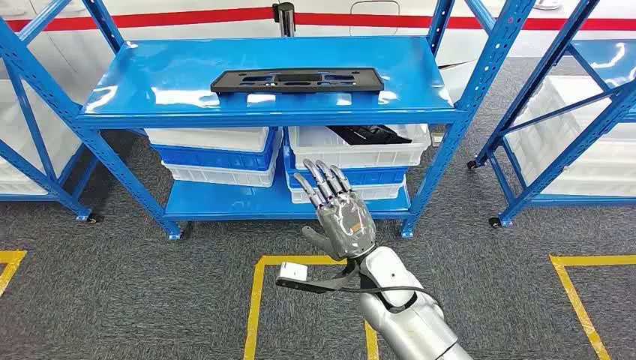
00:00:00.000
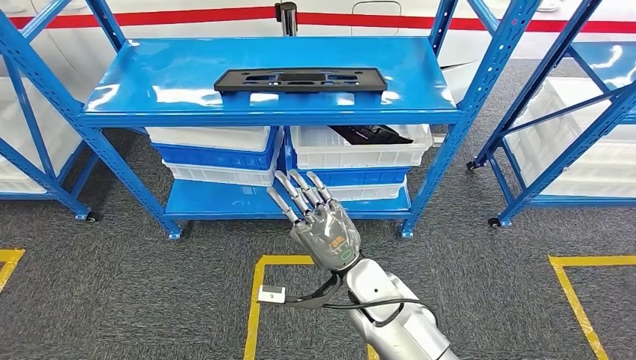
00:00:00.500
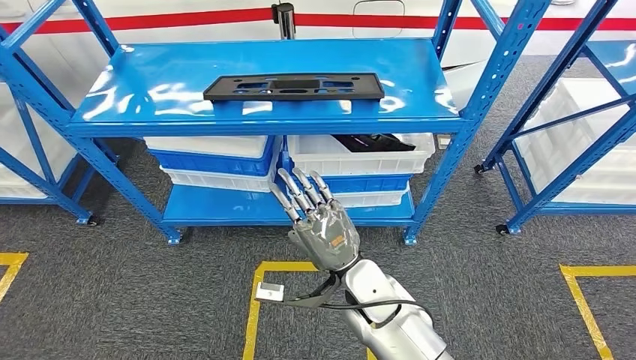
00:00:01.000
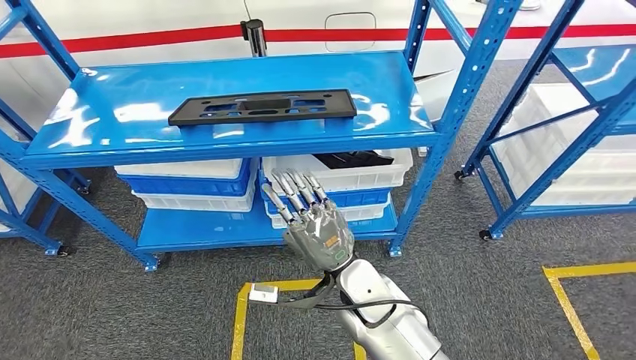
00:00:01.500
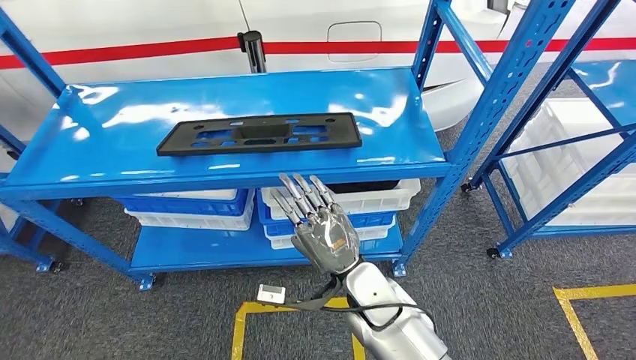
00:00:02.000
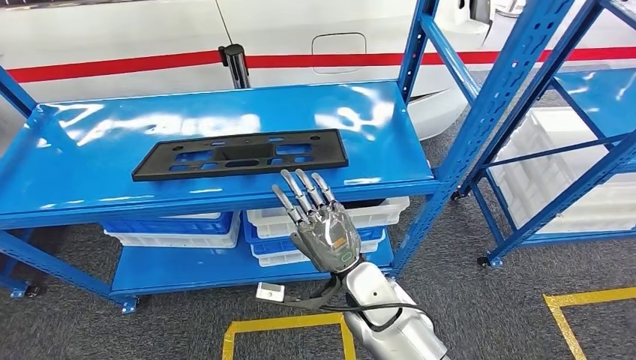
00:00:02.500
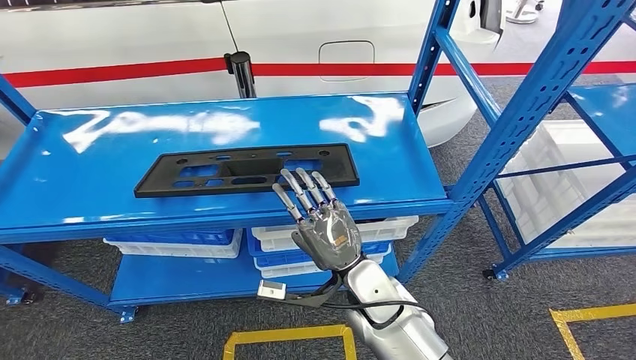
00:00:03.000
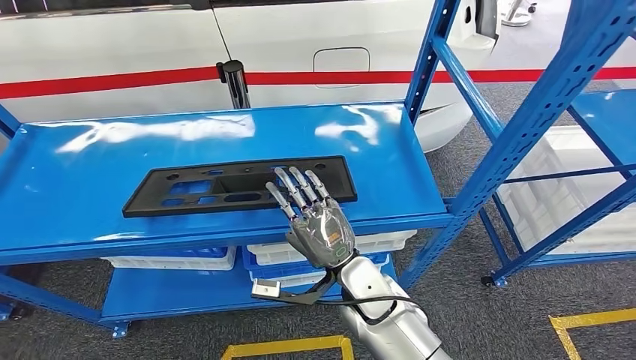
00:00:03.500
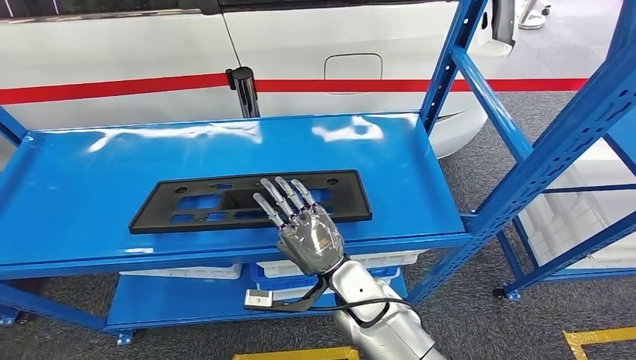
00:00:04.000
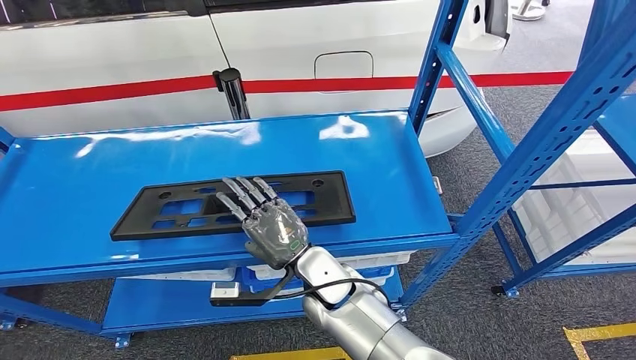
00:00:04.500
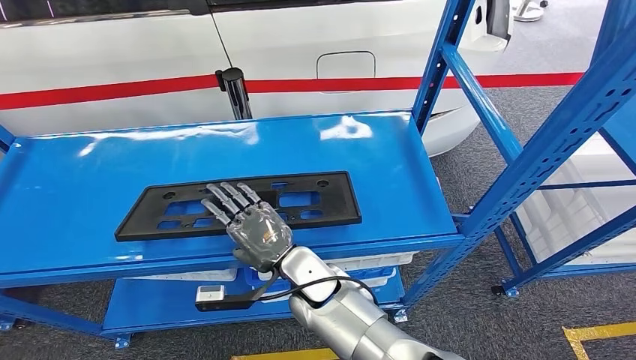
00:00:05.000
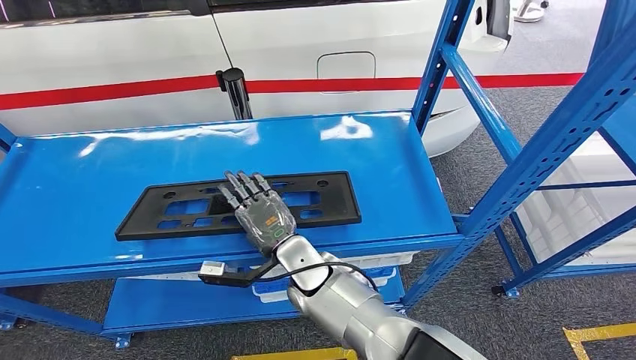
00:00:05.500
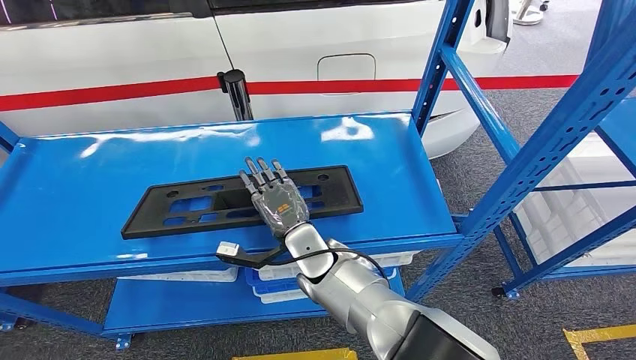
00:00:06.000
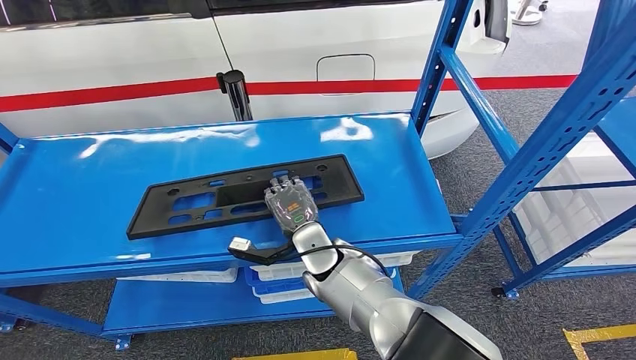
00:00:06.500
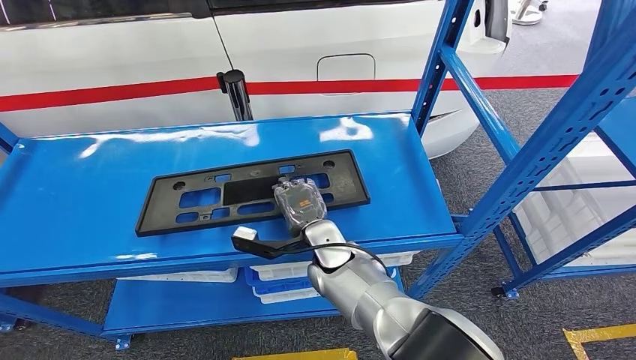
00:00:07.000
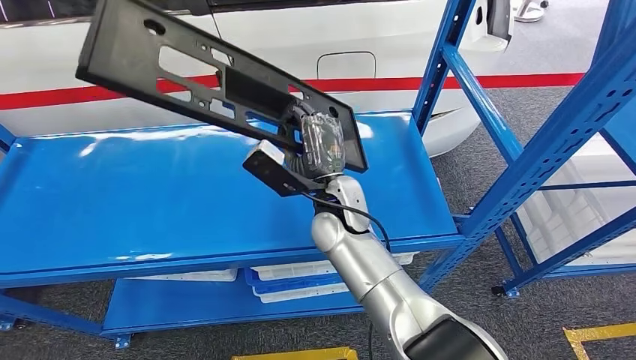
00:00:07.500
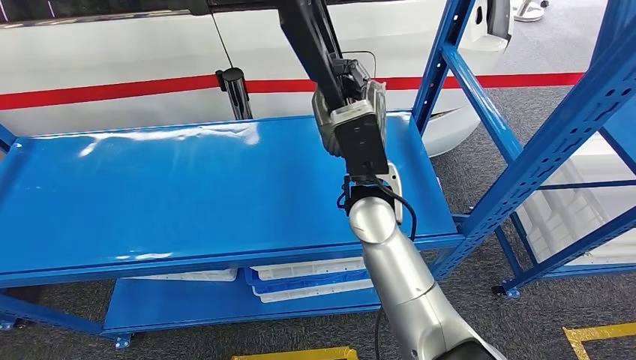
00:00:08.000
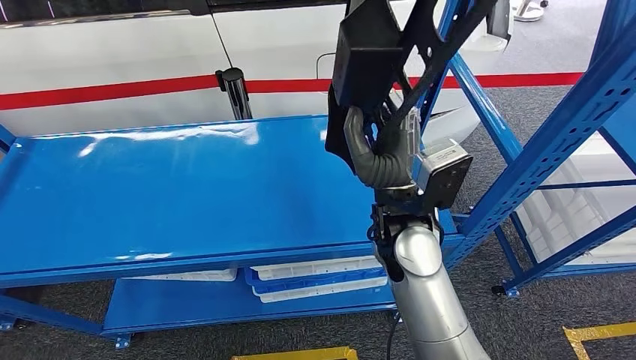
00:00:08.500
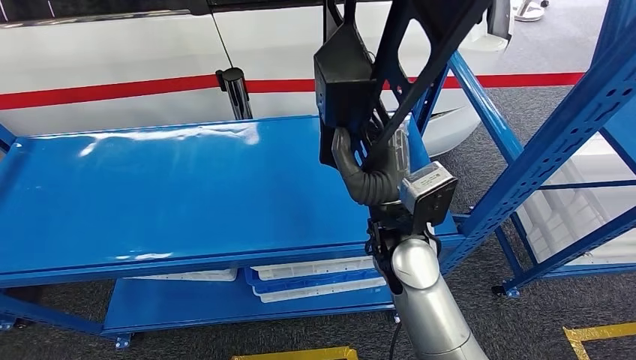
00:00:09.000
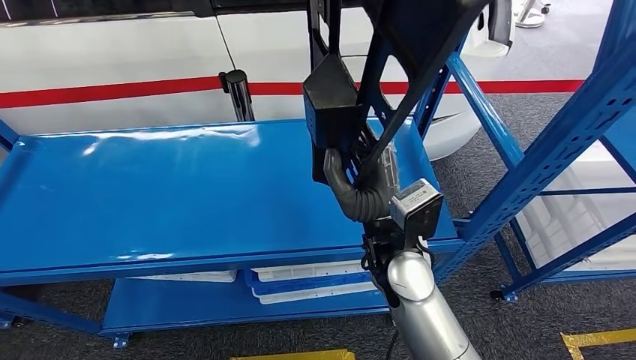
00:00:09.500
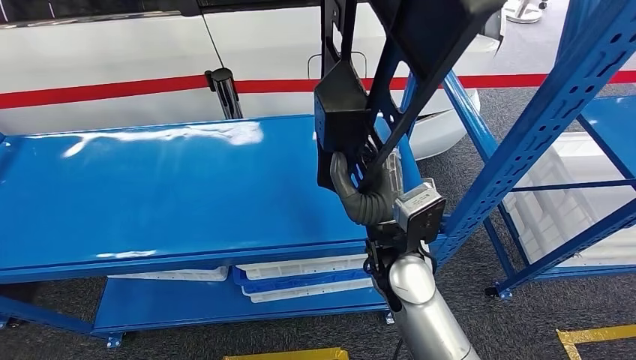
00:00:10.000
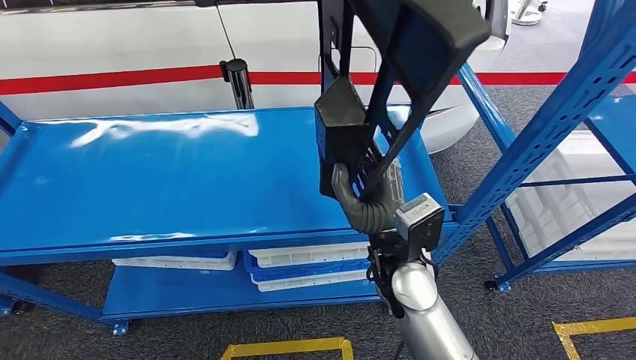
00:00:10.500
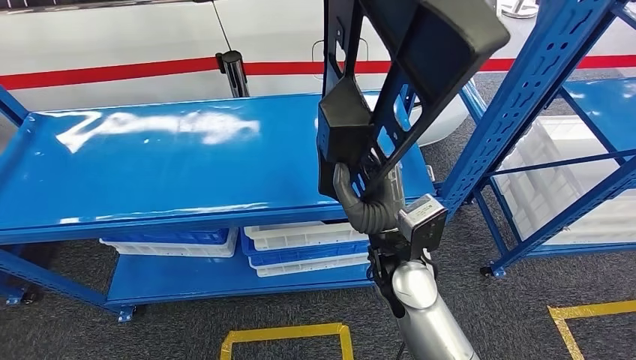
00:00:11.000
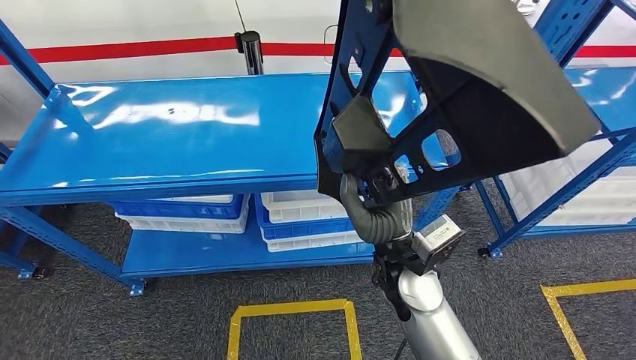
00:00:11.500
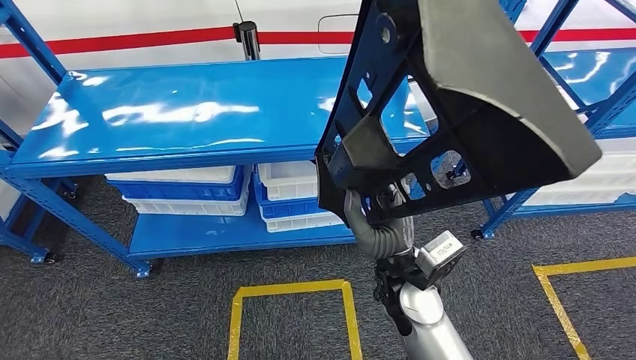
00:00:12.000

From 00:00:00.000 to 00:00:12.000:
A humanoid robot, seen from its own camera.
Step, from 00:00:00.000 to 00:00:11.000: Pick up the large material from the shelf.

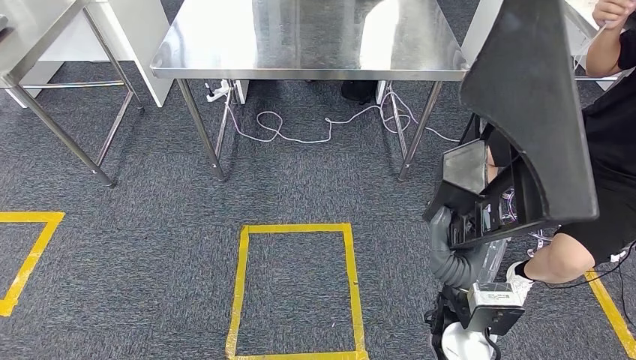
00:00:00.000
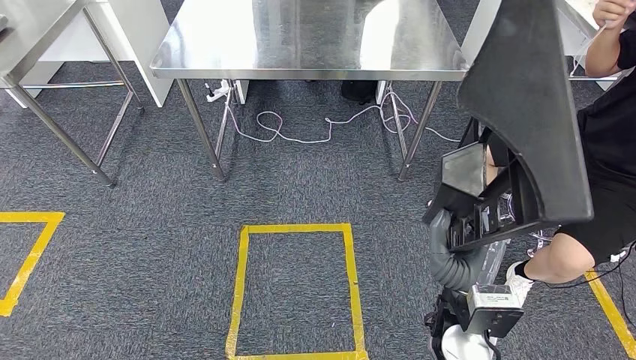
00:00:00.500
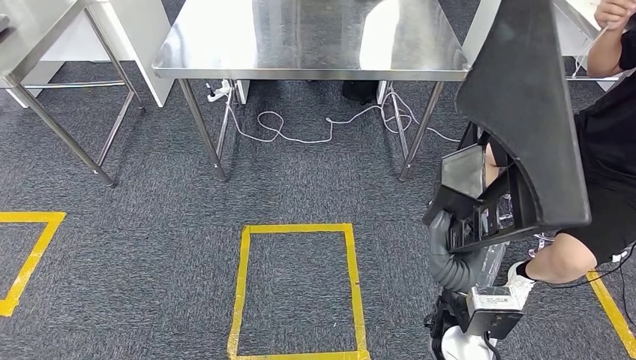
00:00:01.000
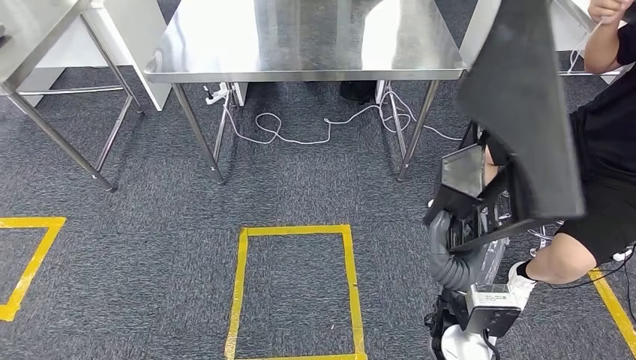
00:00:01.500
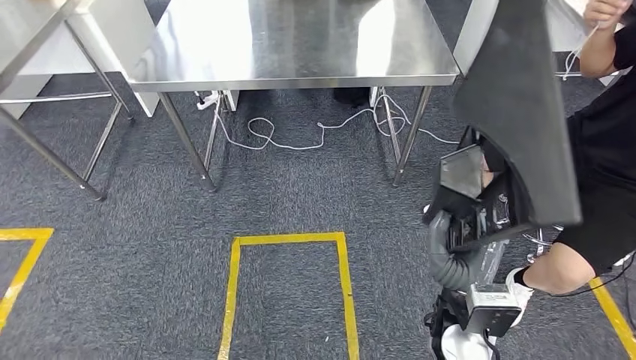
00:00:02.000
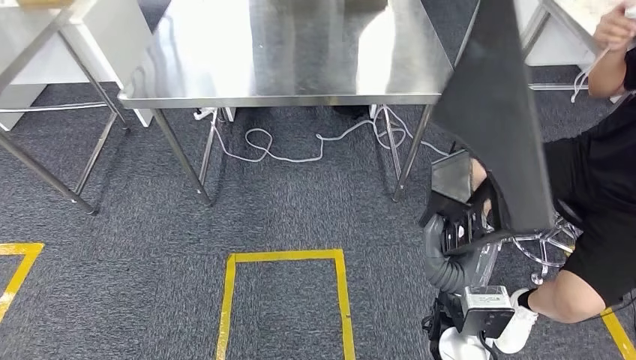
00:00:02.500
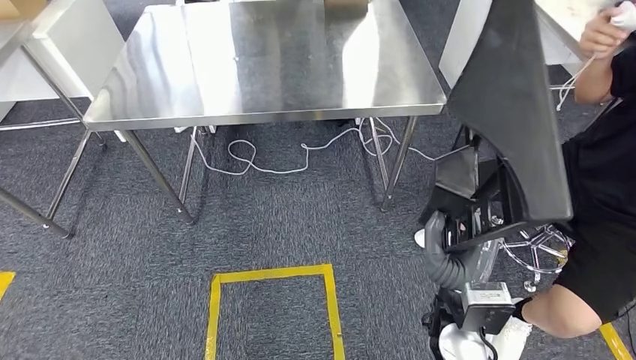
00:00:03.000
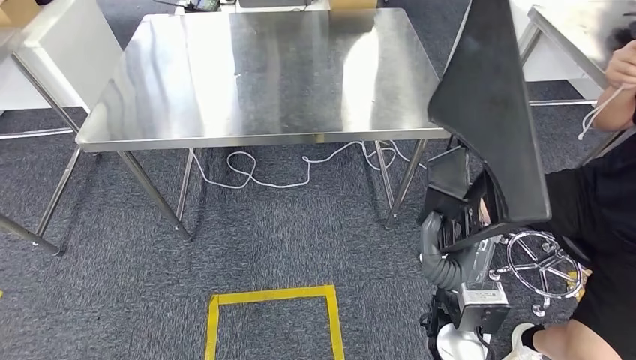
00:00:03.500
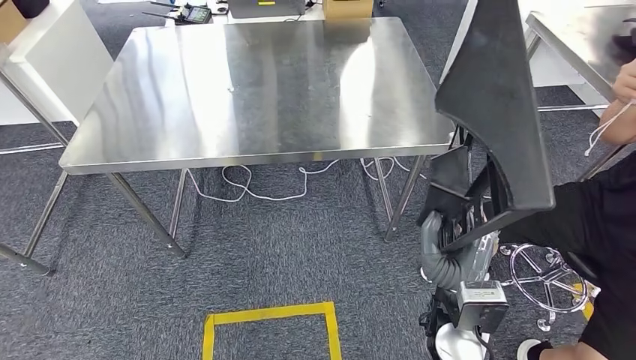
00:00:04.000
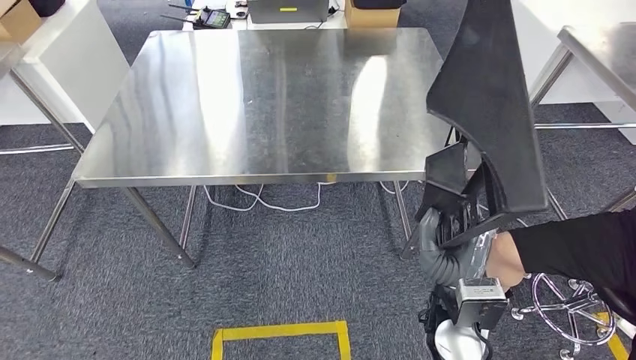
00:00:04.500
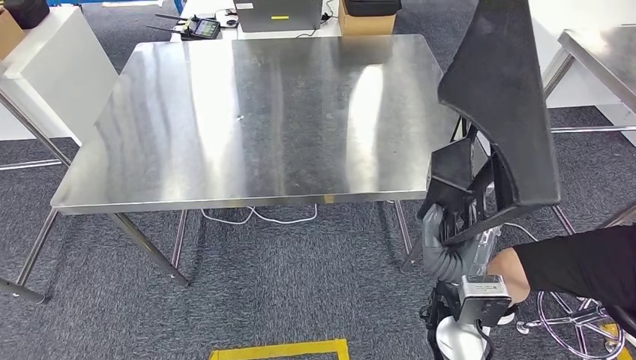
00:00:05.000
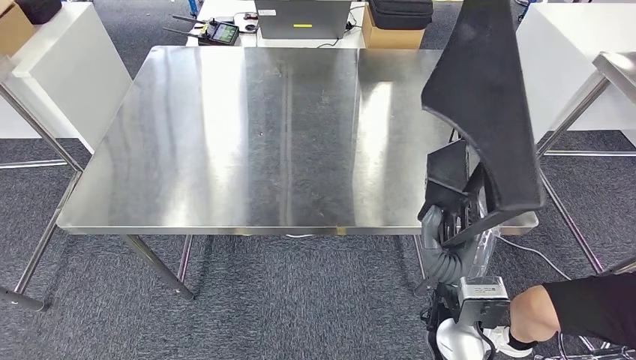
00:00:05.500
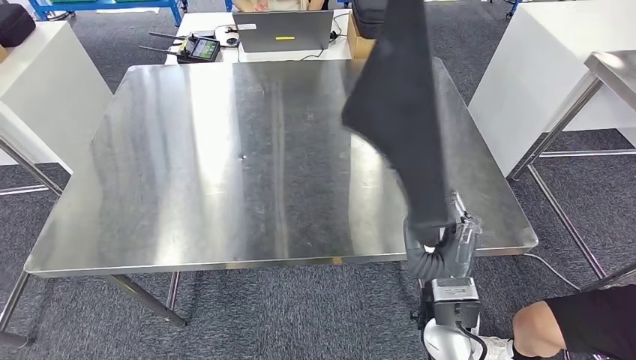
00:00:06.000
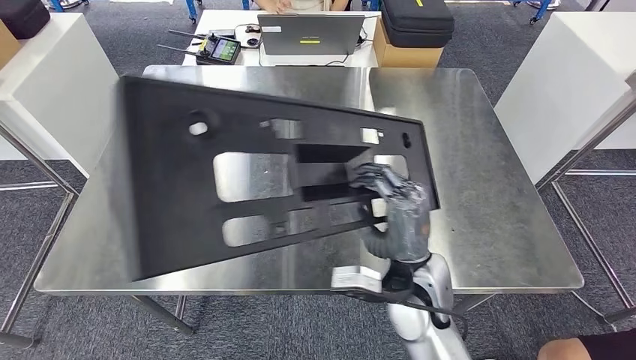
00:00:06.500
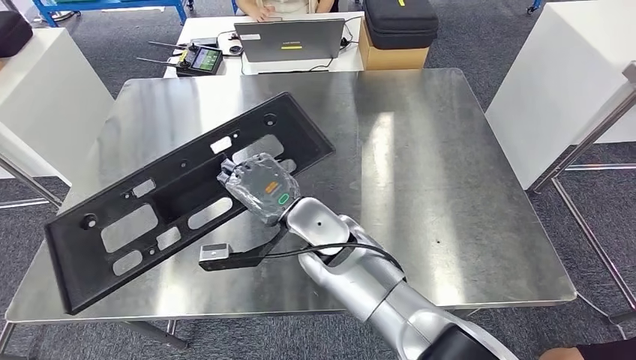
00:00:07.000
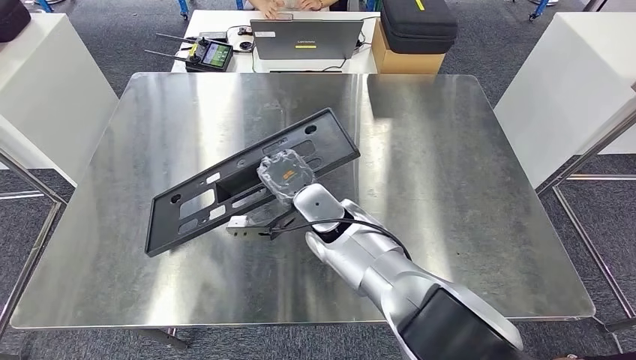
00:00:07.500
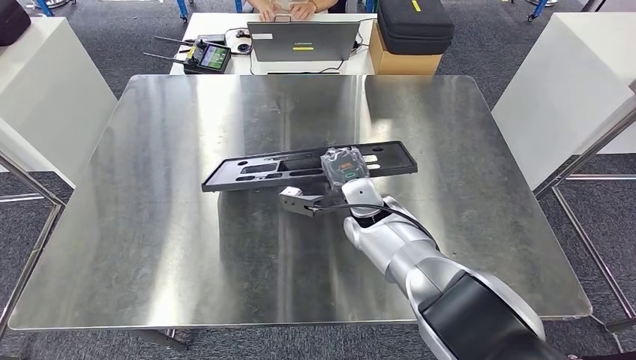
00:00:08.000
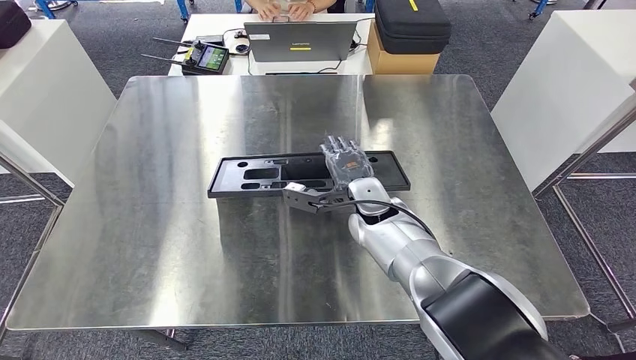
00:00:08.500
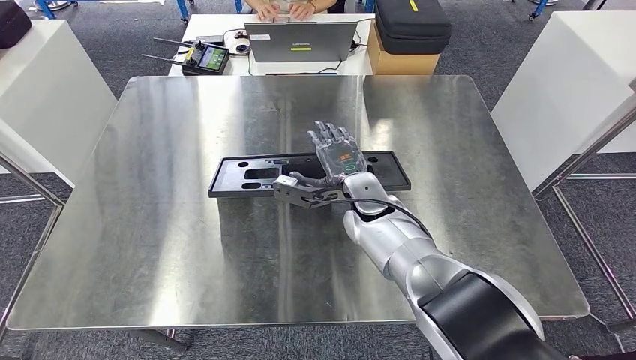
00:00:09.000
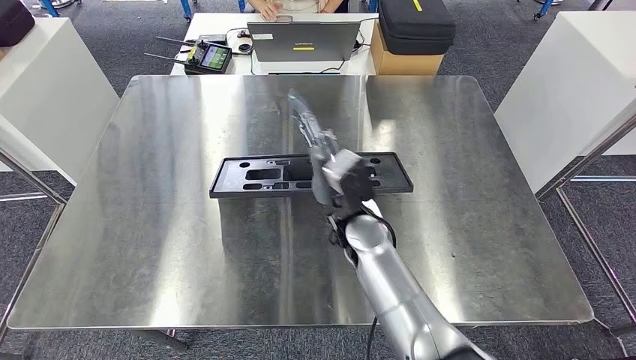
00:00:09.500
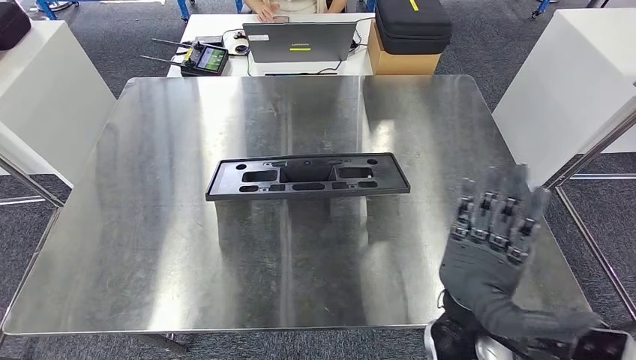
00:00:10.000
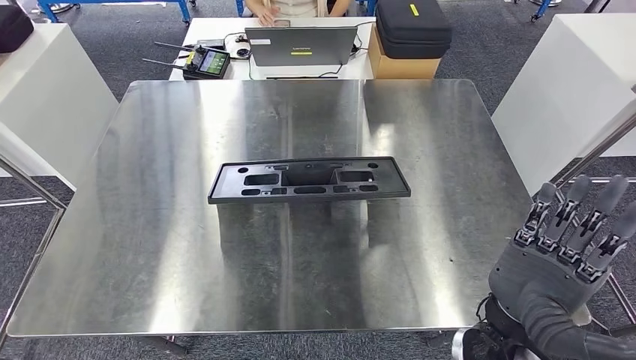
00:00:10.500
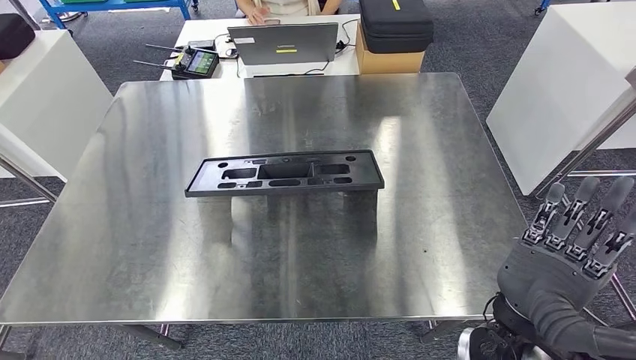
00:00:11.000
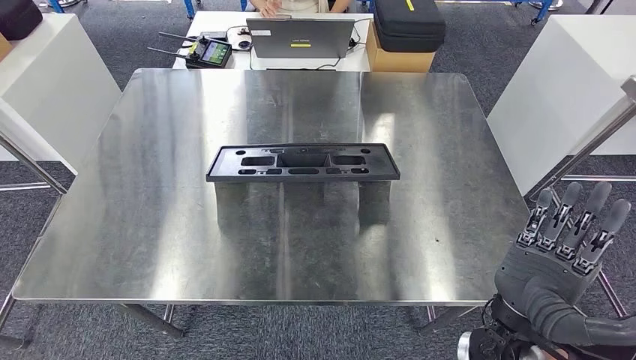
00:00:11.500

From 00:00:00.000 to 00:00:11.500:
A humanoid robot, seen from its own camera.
Step, from 00:00:00.000 to 00:00:05.000: Move the large material to the workbench.
